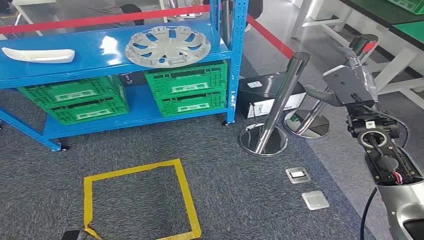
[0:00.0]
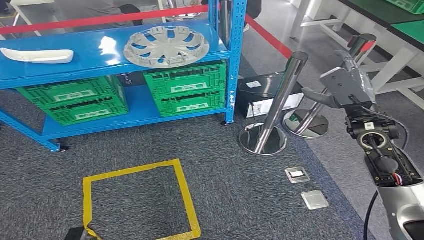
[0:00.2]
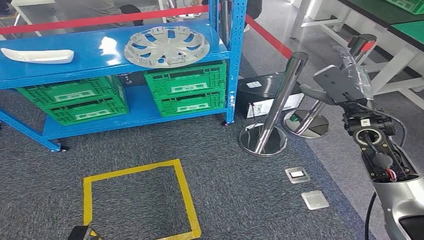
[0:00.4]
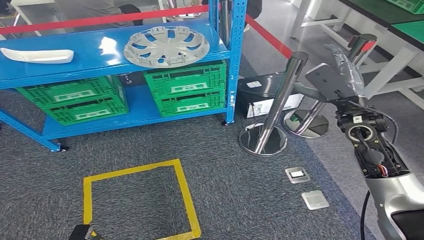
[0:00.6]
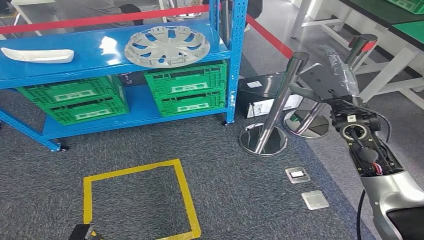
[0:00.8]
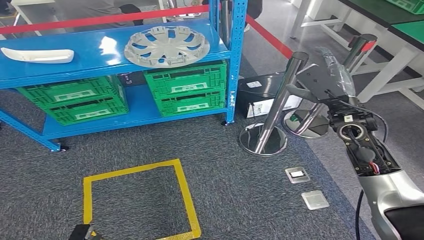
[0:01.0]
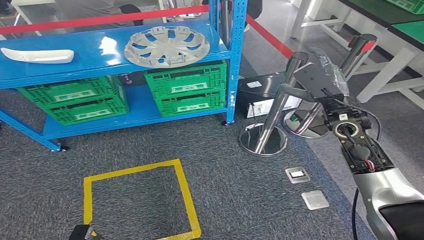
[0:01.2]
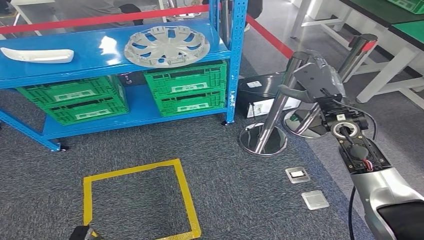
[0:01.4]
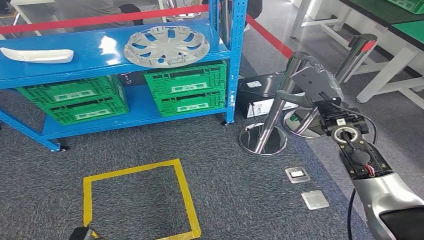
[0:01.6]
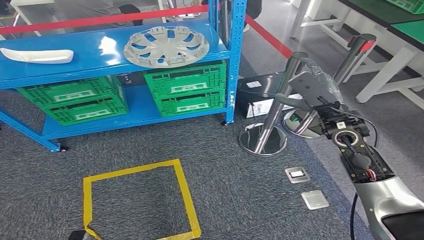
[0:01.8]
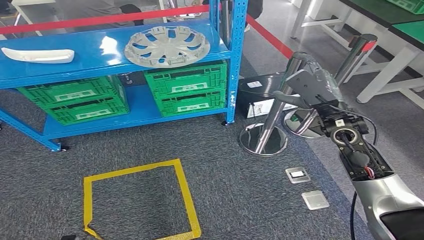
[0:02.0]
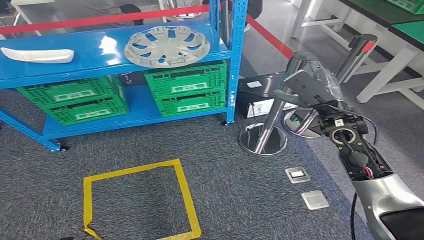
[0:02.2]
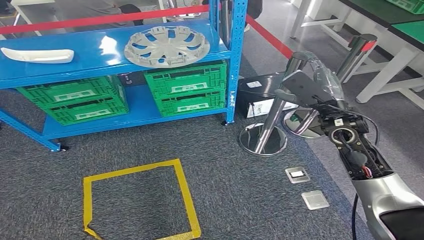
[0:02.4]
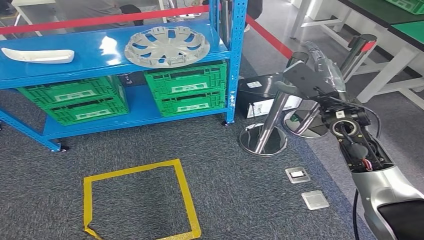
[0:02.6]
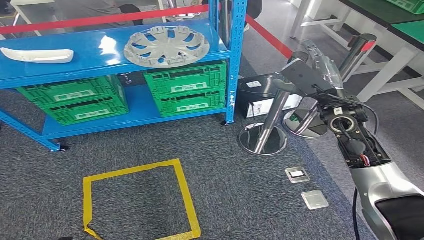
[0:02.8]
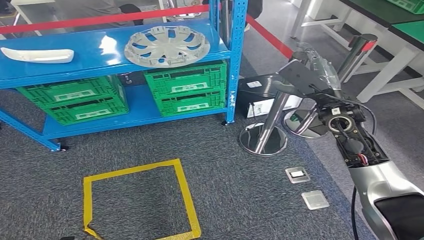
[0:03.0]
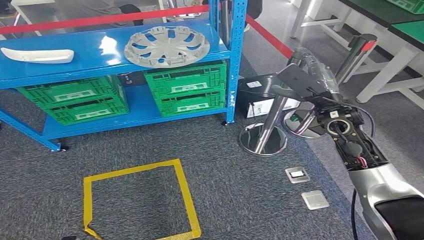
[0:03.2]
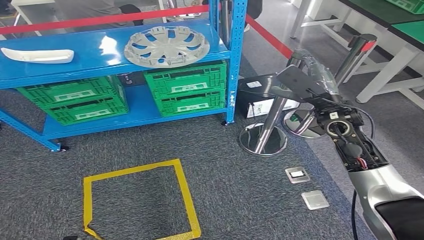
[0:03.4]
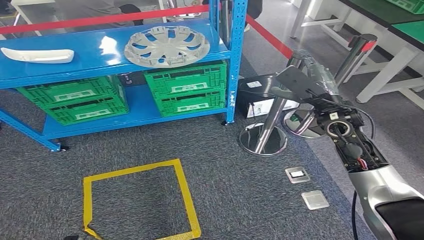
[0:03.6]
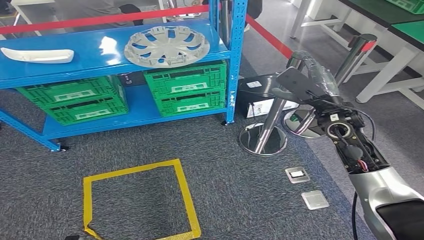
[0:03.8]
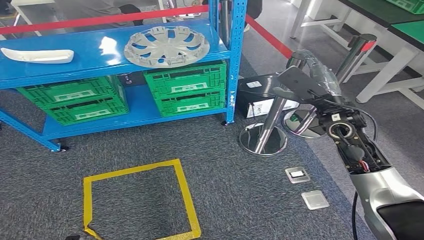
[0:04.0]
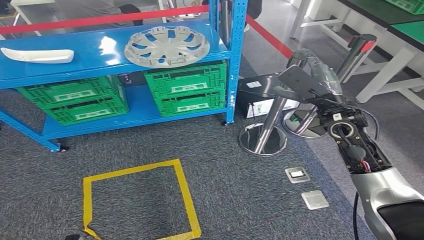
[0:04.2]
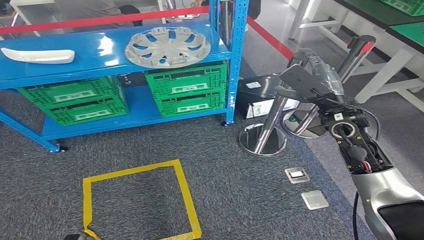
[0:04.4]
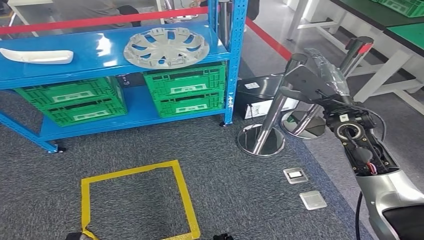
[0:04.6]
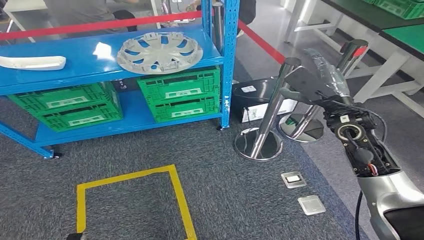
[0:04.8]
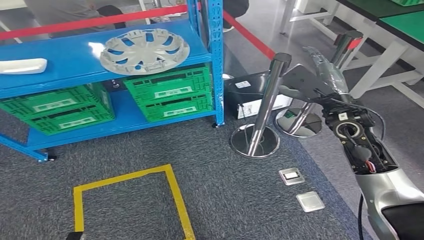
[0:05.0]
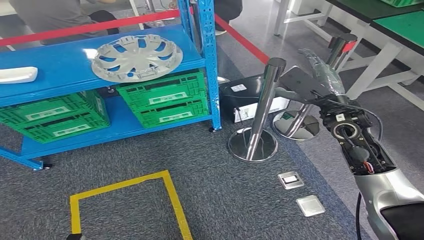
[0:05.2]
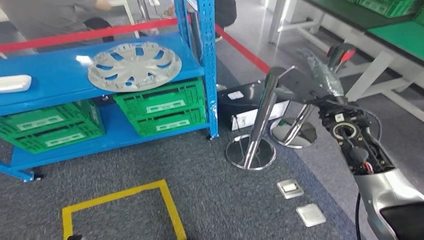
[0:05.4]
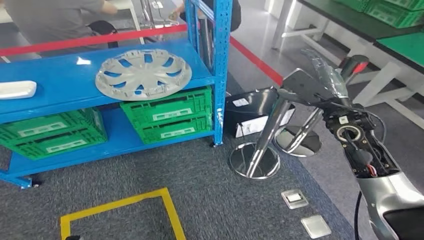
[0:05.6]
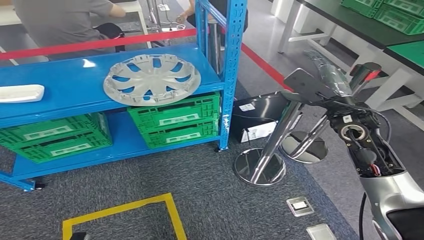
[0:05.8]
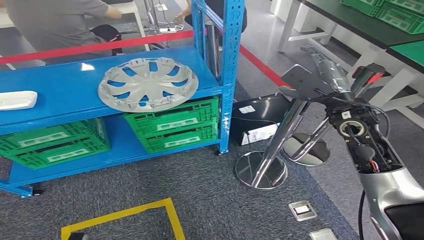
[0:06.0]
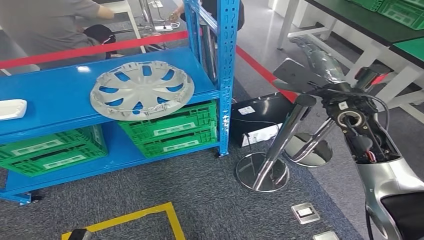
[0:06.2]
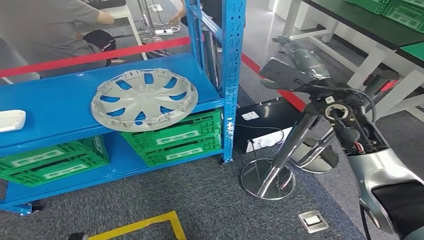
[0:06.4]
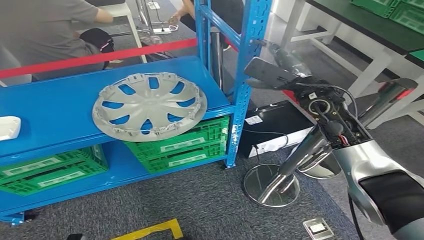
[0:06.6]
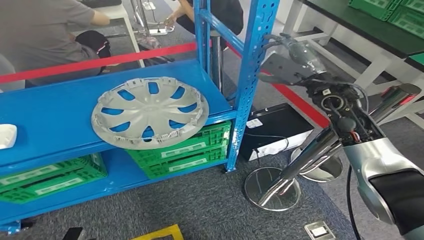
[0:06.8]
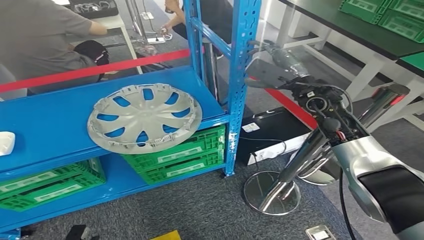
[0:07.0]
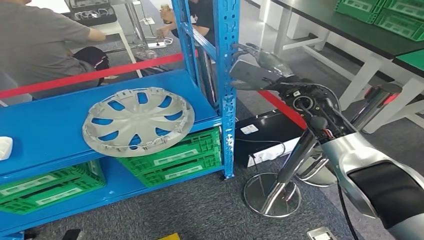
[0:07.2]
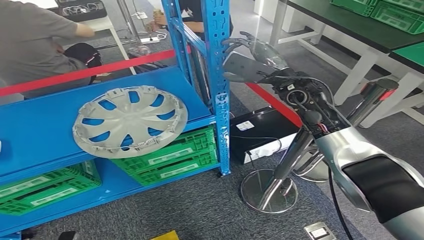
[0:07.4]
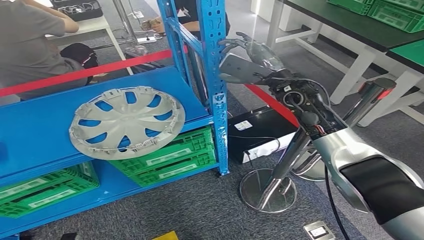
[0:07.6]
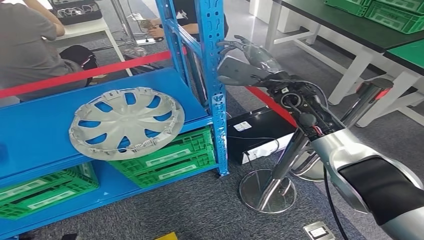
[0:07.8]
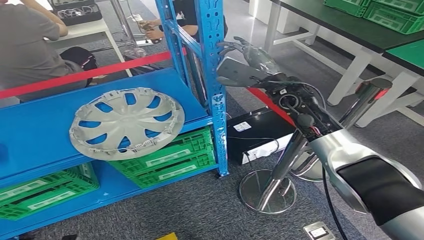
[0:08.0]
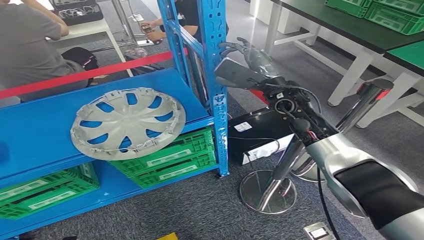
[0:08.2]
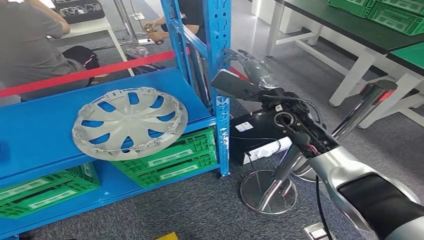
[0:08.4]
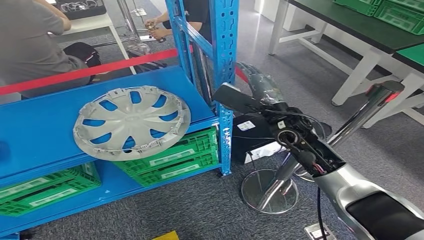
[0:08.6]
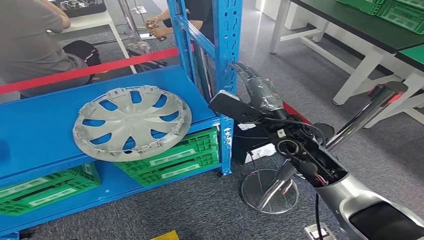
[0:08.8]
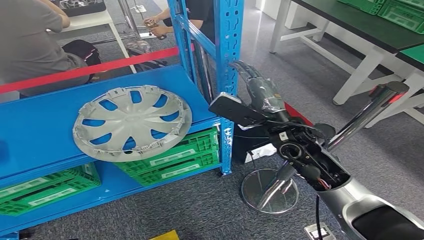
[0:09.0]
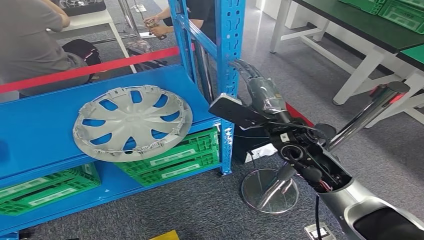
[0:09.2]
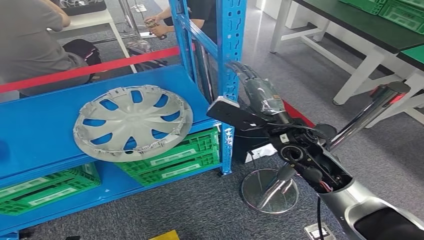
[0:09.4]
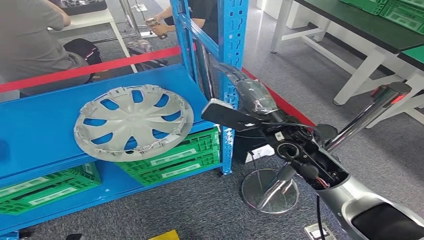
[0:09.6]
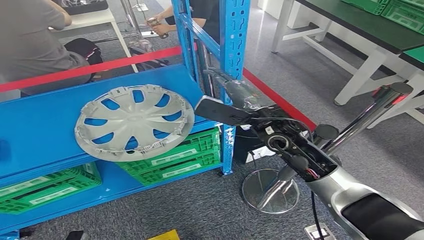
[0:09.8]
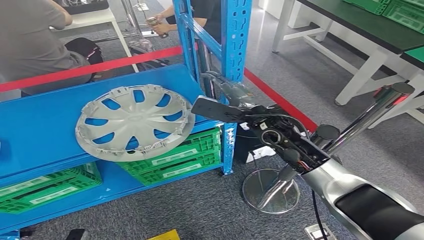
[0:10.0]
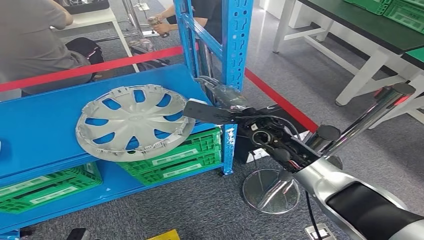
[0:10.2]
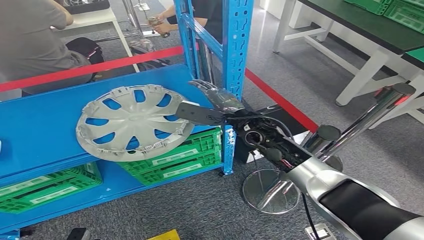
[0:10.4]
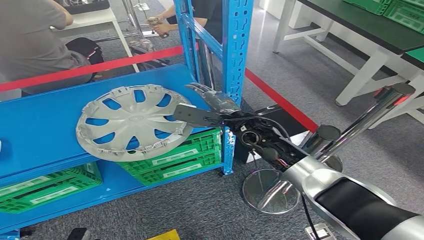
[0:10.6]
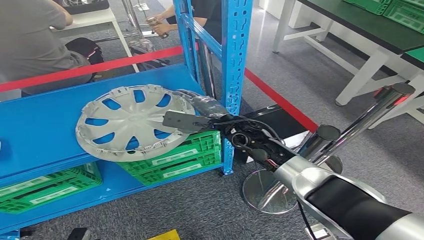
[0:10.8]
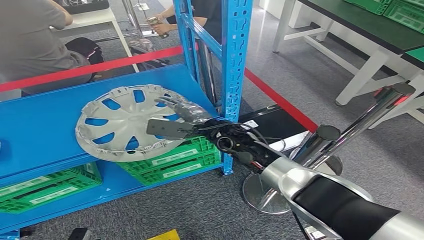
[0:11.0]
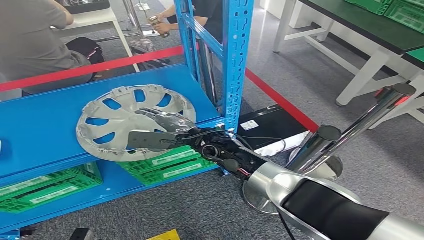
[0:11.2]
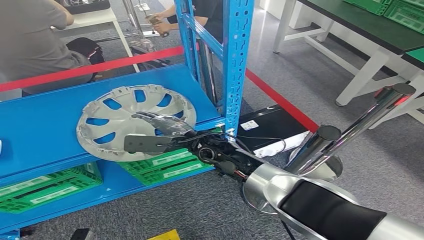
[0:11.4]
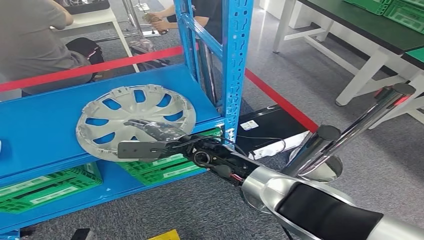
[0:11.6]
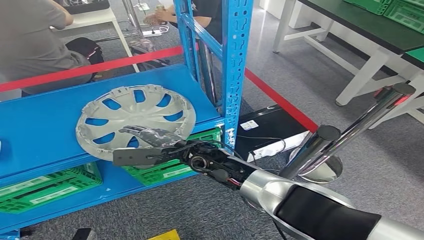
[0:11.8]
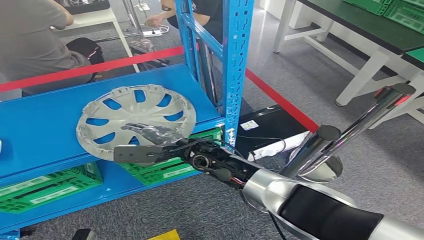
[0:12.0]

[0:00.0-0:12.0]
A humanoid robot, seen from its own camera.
0:01.6 to 0:04.4: The hands make only small movements.
0:10.4 to 0:12.0: The right hand shifts roughly 15 cm to the left.

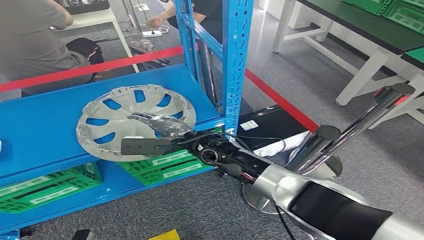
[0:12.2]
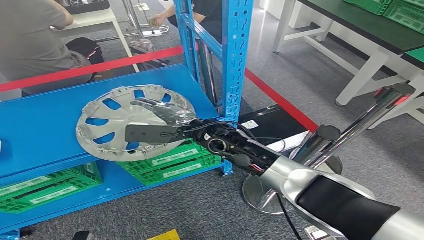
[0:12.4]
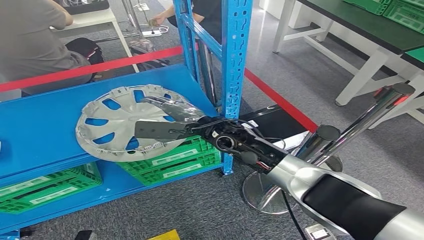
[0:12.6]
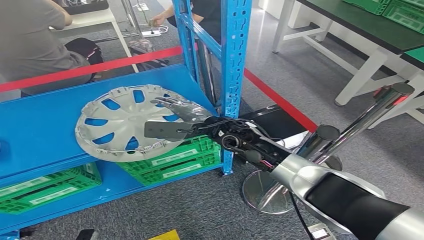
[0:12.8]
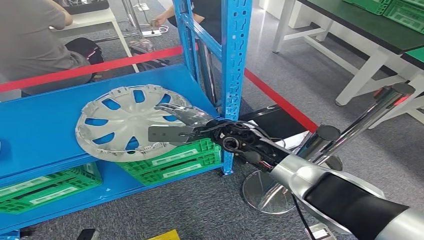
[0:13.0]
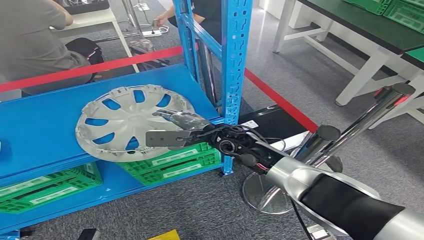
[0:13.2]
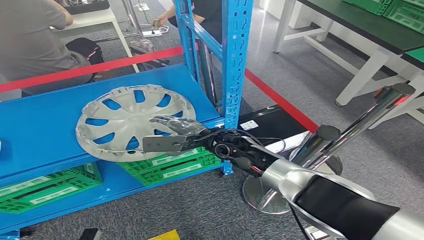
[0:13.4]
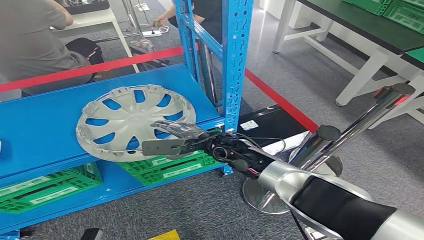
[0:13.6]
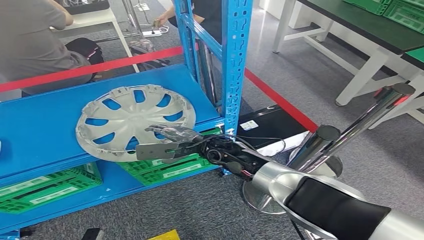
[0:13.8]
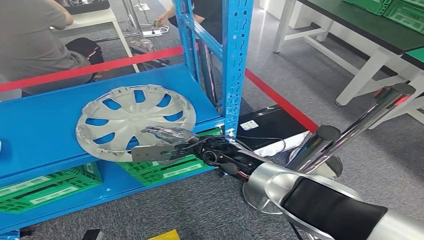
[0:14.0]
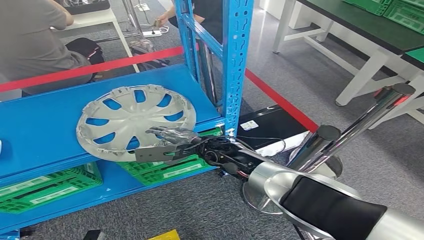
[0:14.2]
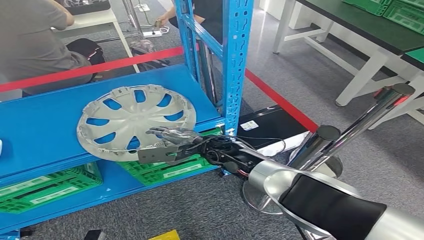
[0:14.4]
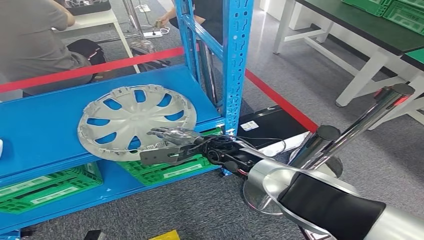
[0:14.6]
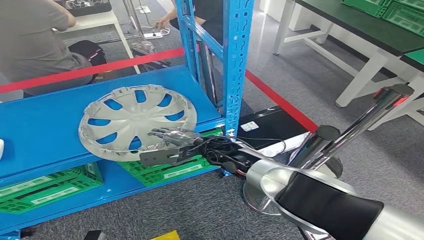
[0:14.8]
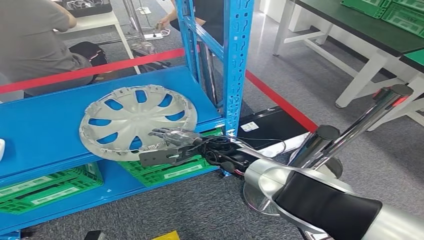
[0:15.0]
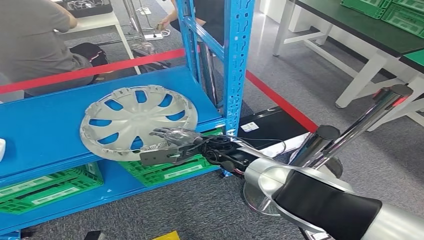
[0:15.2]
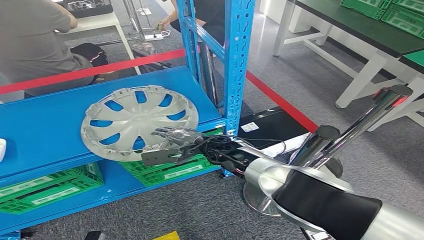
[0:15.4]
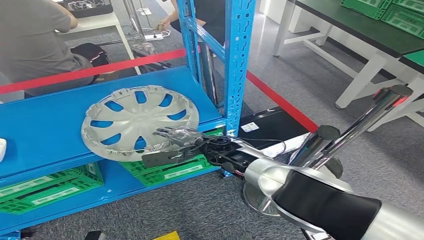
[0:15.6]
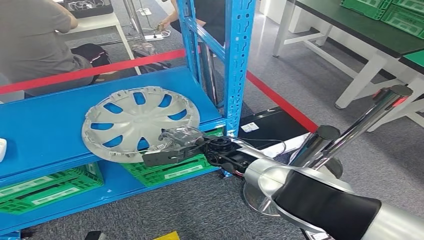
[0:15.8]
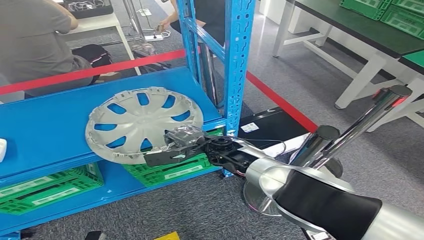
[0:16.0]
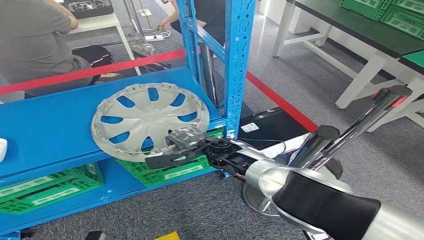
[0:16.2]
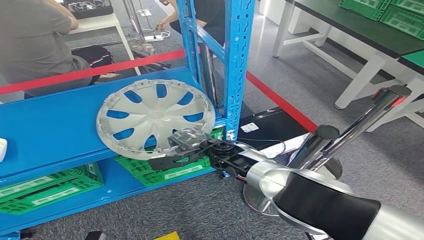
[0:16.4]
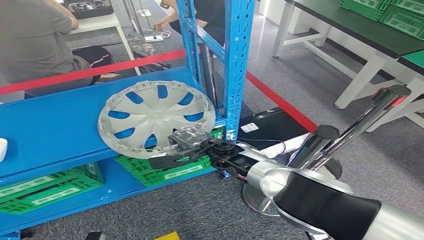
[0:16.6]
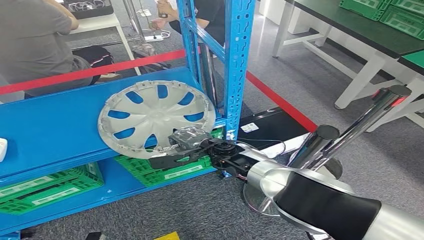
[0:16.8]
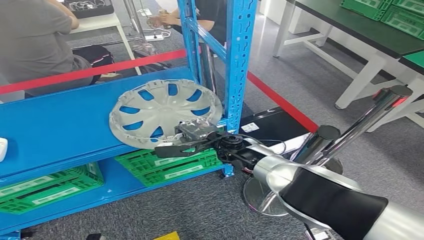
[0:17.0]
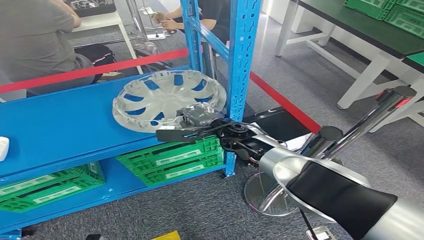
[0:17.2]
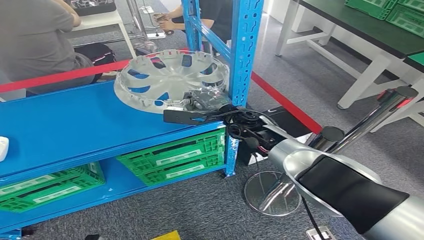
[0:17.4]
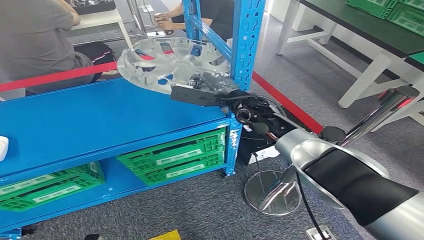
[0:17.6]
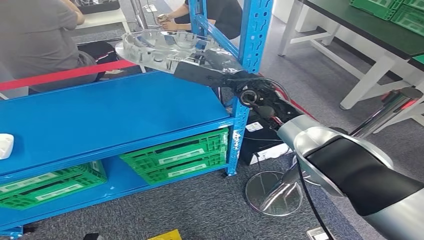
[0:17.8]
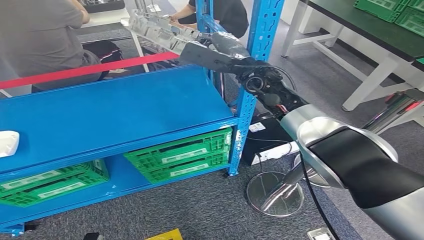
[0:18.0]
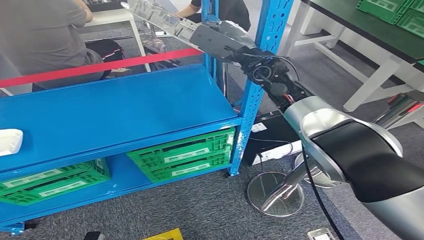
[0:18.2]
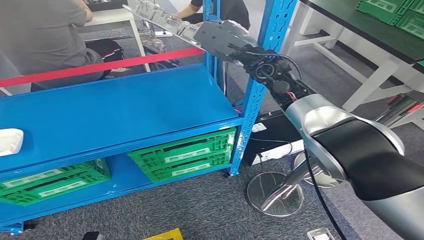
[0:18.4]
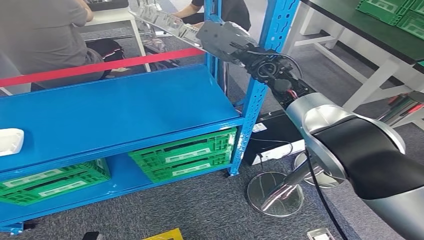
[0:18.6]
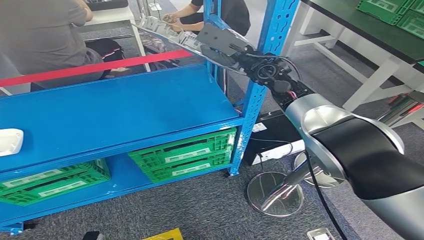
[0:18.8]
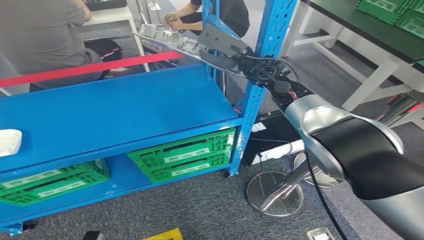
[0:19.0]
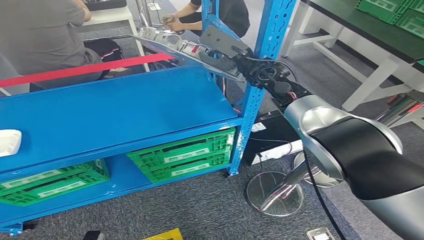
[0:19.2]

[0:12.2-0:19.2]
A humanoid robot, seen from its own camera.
Step, 0:12.2 to 0:18.8: Pick up the small component from the shelf.
0:12.2 to 0:13.6: The right hand ends up about 5 cm from where it was.
0:13.6 to 0:15.0: The hands stay close to where they were, moving slightly.
0:15.0 to 0:16.4: The hands stay close to where they were, moving slightly.
